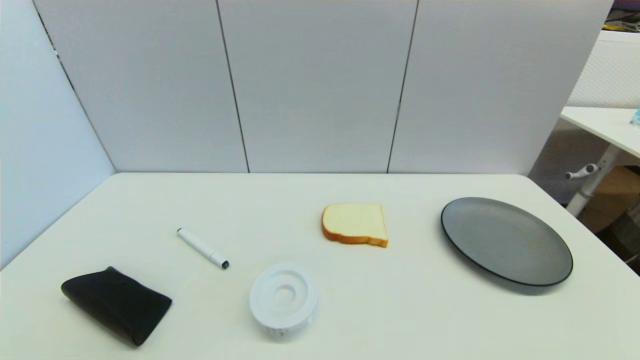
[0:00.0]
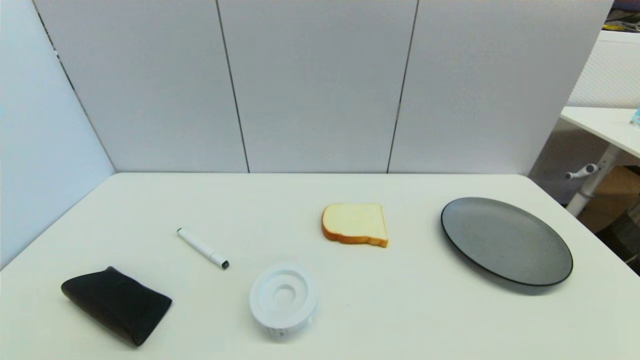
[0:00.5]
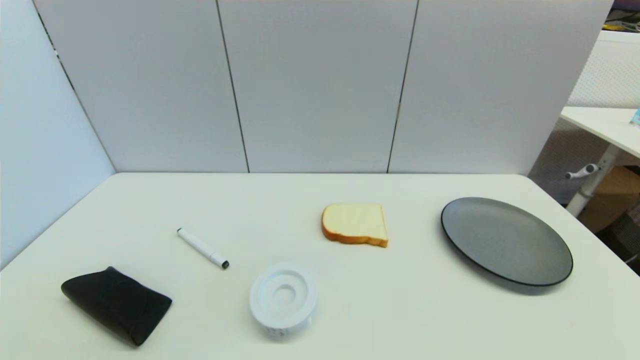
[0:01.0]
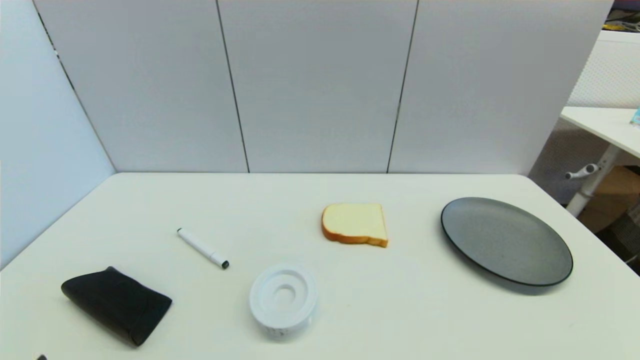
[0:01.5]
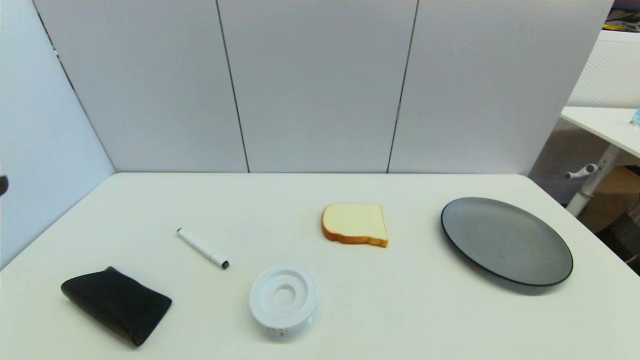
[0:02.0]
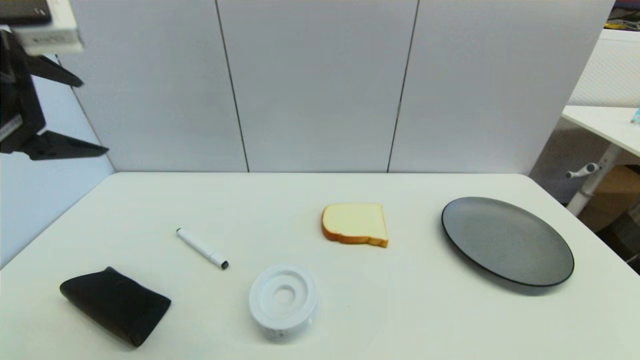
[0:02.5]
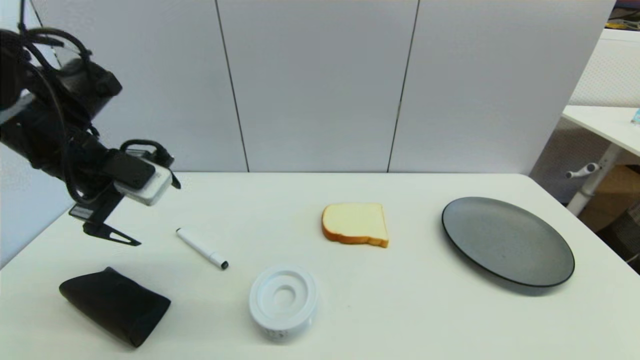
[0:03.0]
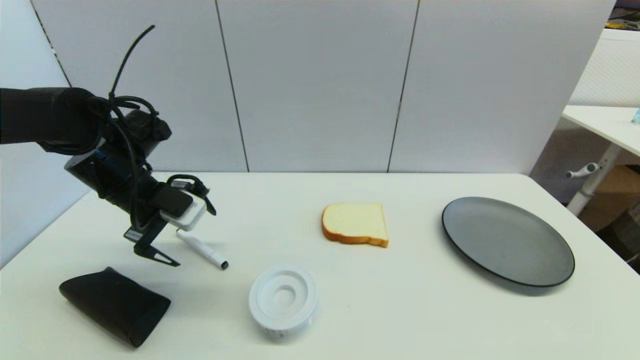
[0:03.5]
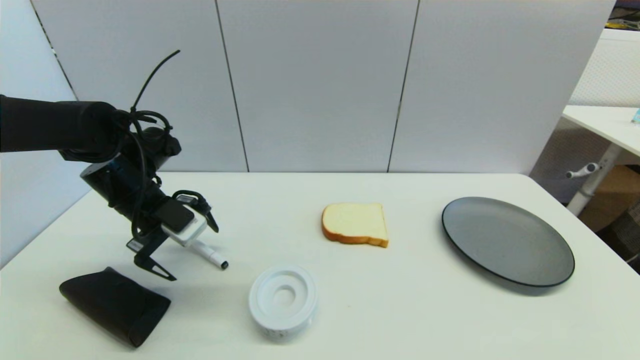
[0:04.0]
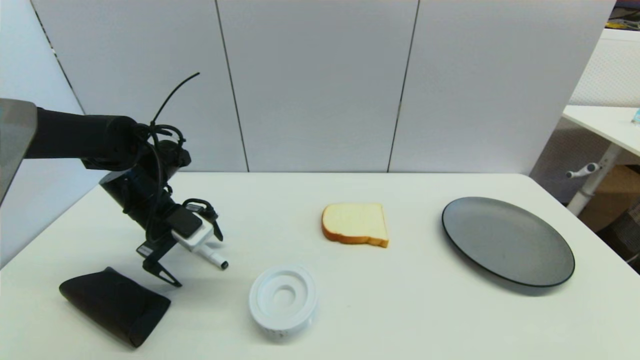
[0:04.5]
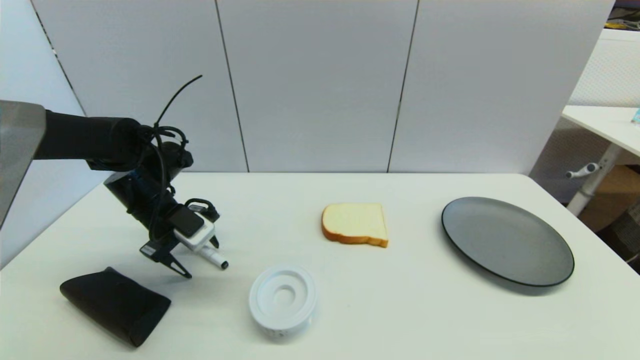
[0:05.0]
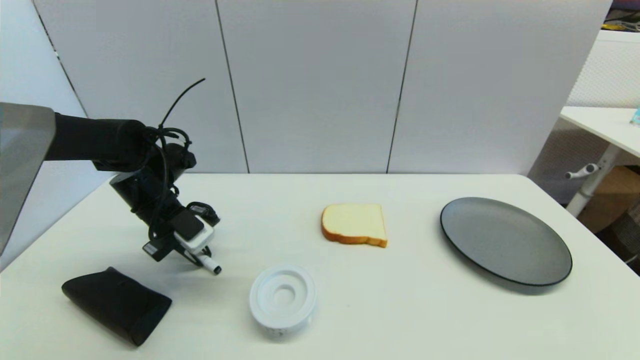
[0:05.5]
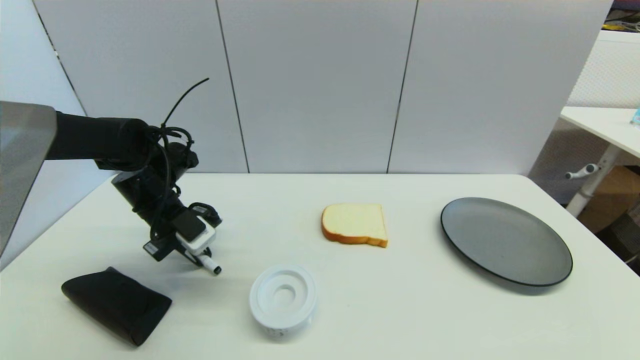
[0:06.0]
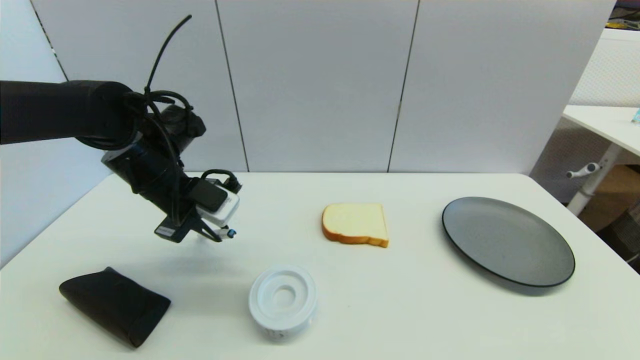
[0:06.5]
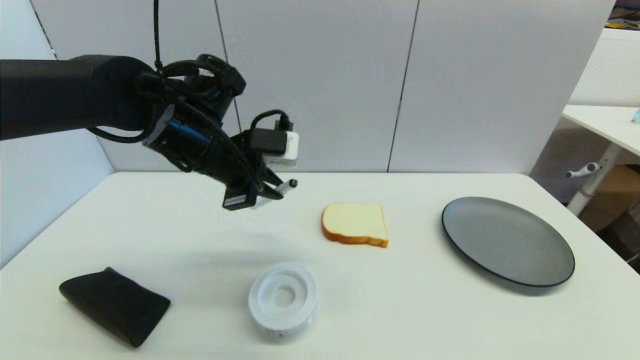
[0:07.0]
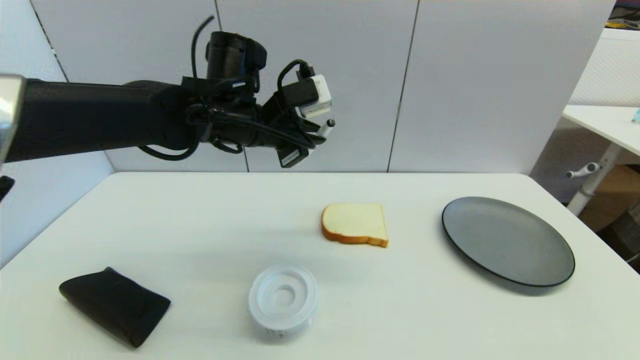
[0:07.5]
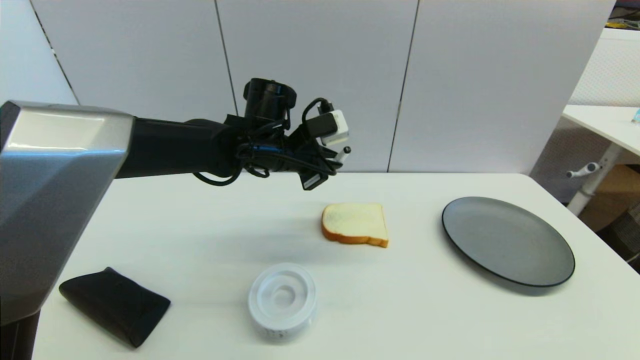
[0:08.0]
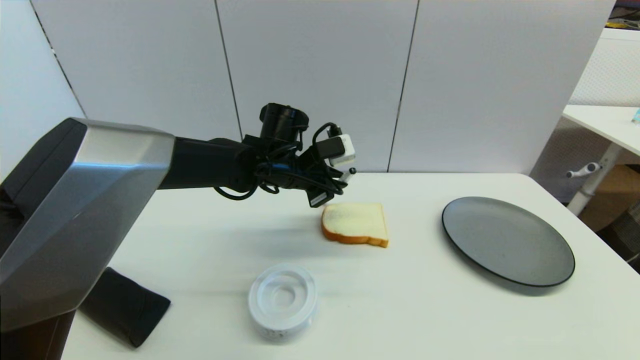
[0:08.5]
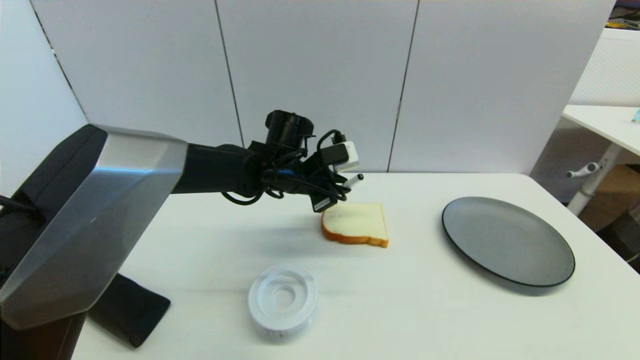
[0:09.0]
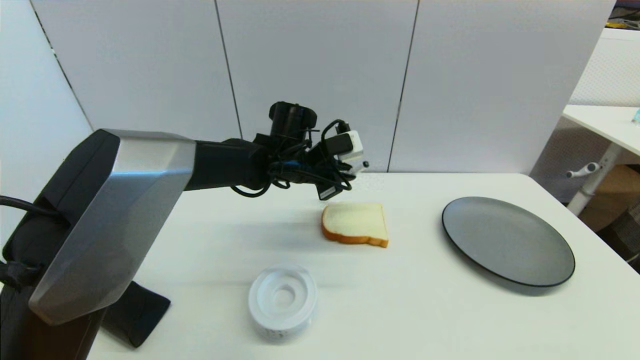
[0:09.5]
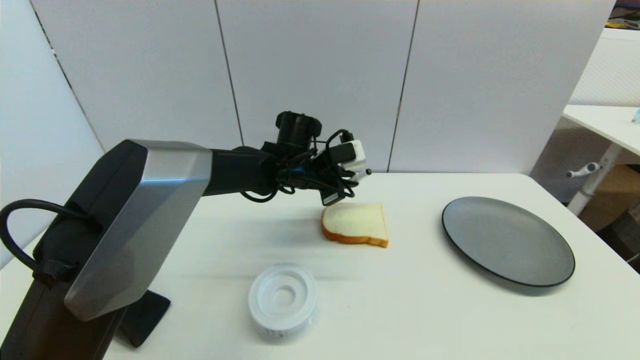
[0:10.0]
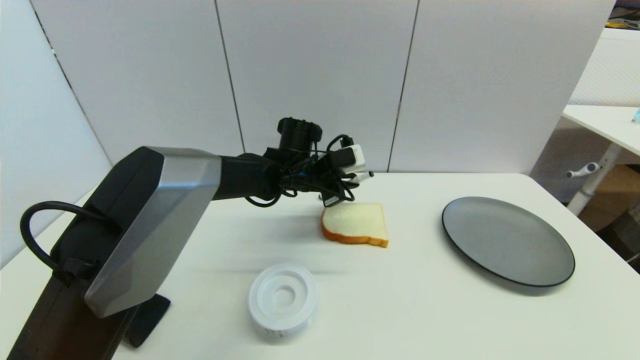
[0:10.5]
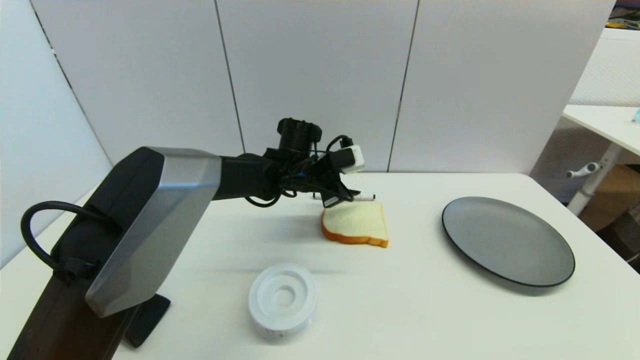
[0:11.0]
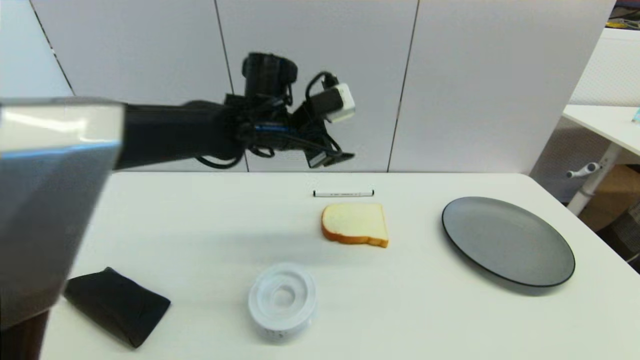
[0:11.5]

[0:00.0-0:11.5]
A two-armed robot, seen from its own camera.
Task of the whole recording: put the black marker in the designated position.
Step, 0:02.0 to 0:05.0: Grasp the Marker pen with left gripper.
Step, 0:06.0 to 0:11.0: Place the Marker pen on the table with left gripper.
0:02.0 to 0:04.0: The left gripper moves forward and downward, about 30 cm.
0:04.0 to 0:06.0: The left gripper closes up.
0:06.0 to 0:07.5: The left gripper goes some 20 cm to the right and upward.
0:07.5 to 0:09.5: The left gripper heads downward, to the right and forward, covering some 10 cm.
0:09.5 to 0:11.5: The left gripper is displaced upward by about 10 cm, and opens its fingers.

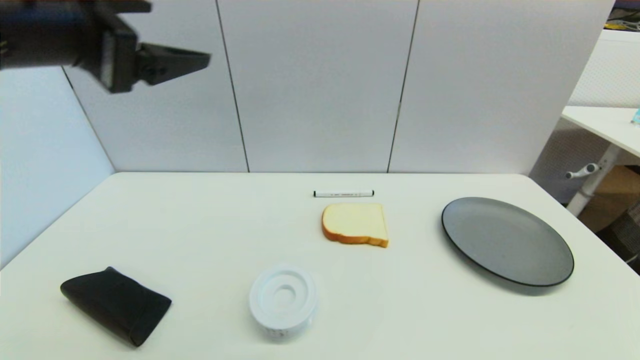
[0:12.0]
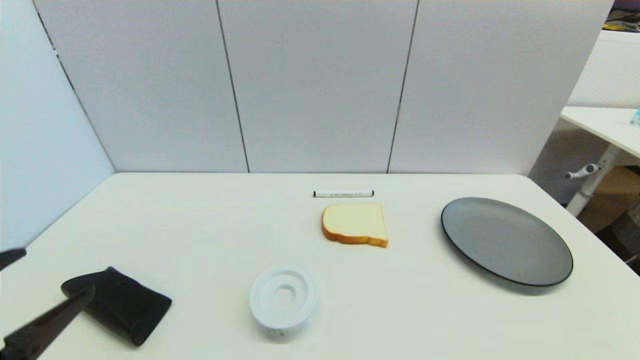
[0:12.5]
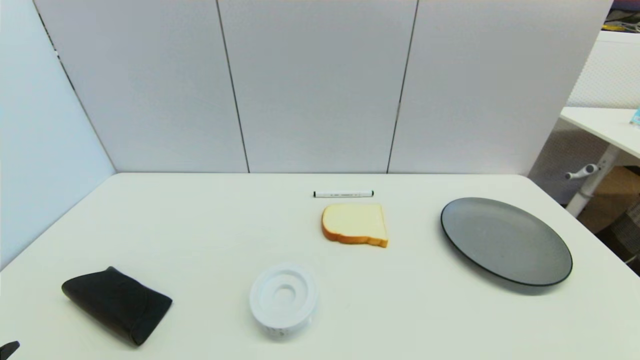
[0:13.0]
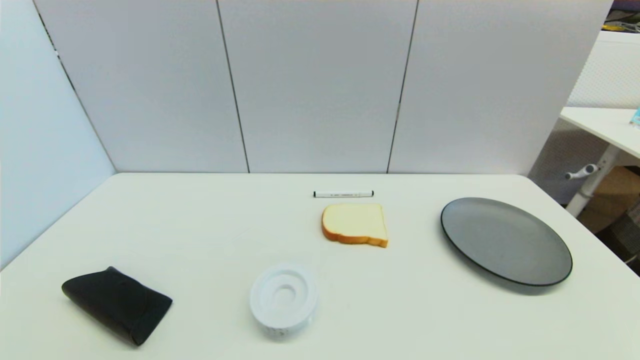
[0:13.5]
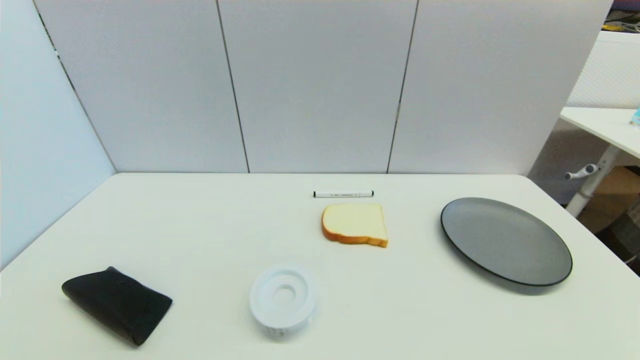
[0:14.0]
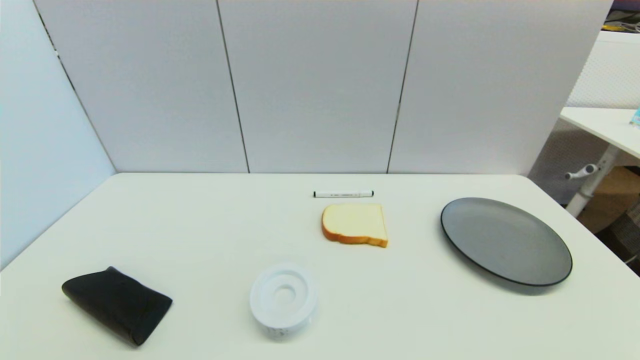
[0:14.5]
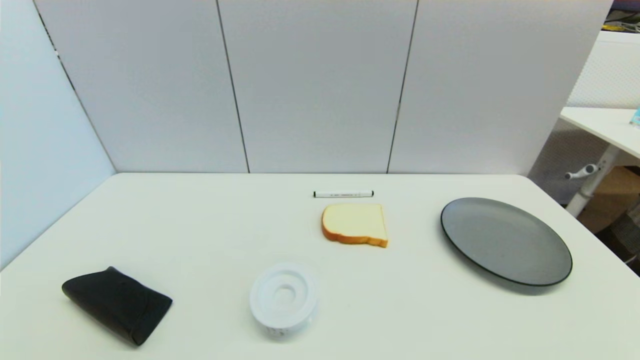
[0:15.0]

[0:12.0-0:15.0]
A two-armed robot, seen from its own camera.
Task of the whole recording: put the black marker in the designated position.
0:12.0 to 0:13.5: The left gripper moves downward and backward, approximately 35 cm.
0:13.5 to 0:15.0: Neither gripper changes place.
